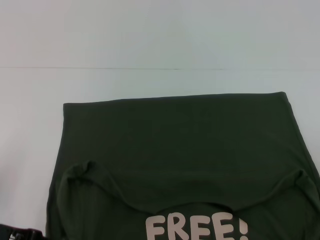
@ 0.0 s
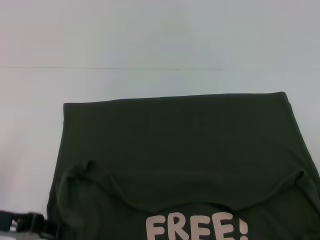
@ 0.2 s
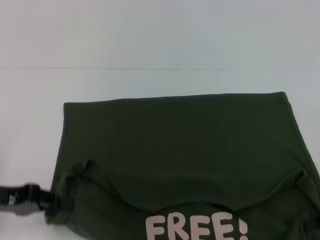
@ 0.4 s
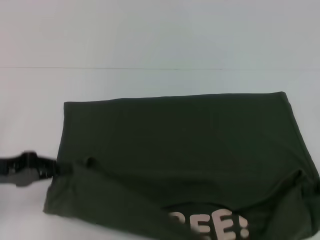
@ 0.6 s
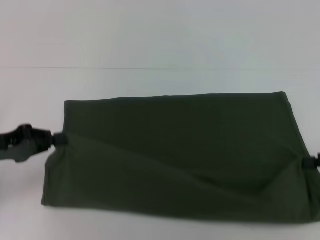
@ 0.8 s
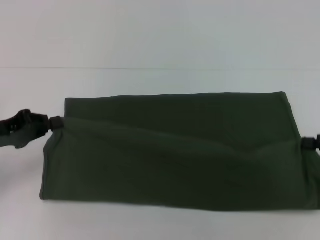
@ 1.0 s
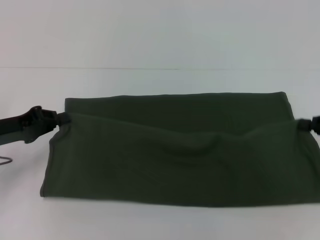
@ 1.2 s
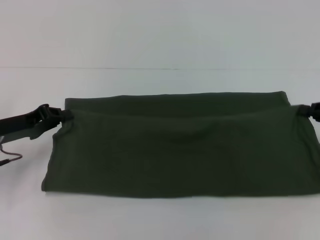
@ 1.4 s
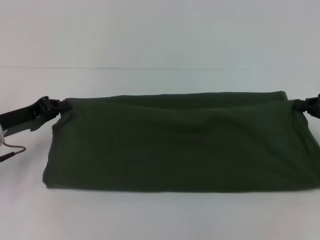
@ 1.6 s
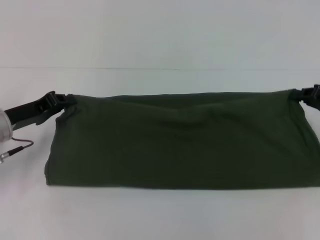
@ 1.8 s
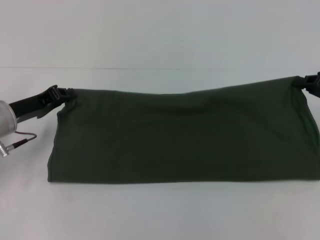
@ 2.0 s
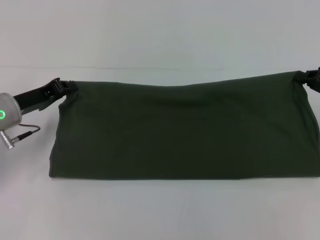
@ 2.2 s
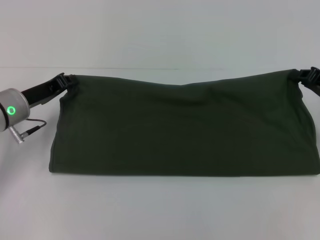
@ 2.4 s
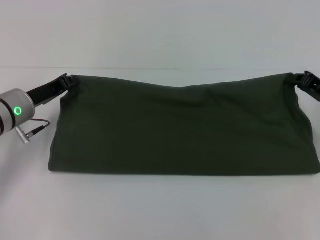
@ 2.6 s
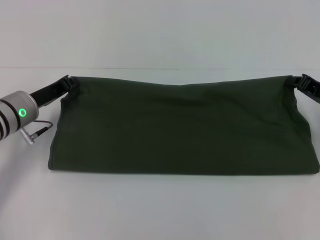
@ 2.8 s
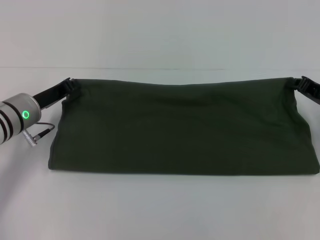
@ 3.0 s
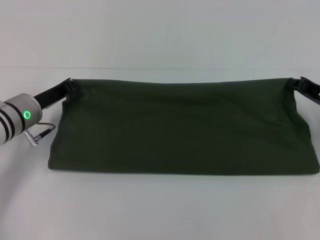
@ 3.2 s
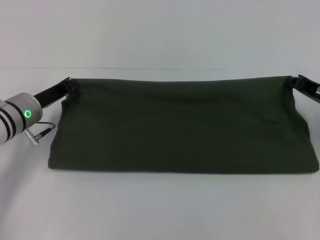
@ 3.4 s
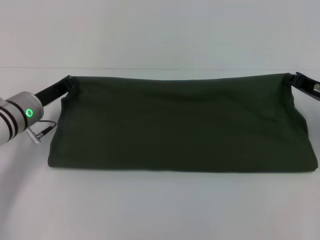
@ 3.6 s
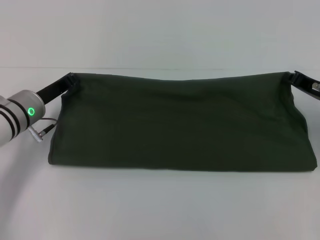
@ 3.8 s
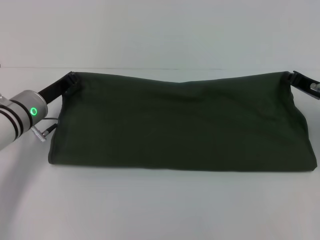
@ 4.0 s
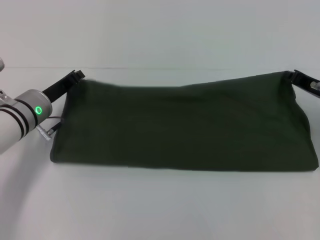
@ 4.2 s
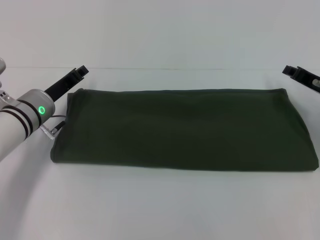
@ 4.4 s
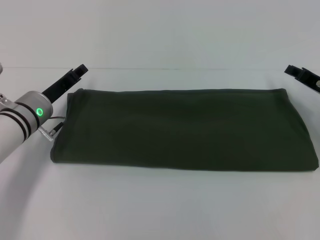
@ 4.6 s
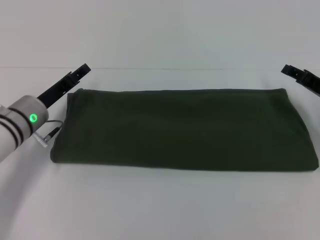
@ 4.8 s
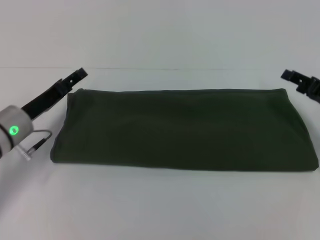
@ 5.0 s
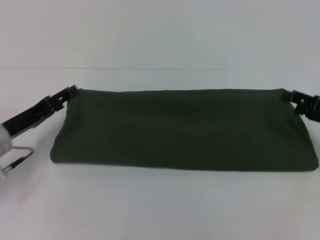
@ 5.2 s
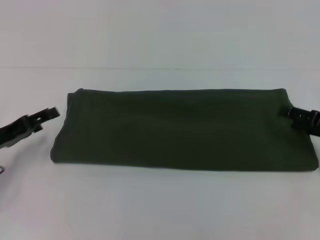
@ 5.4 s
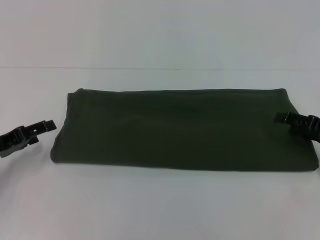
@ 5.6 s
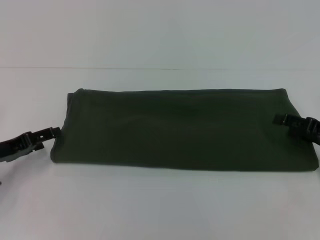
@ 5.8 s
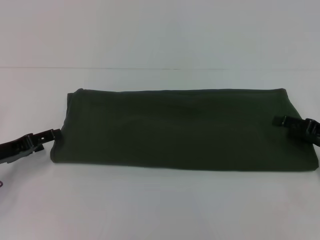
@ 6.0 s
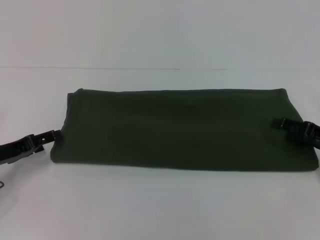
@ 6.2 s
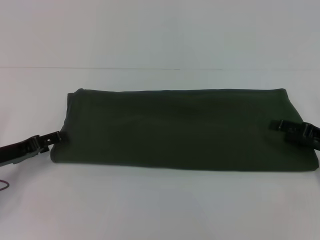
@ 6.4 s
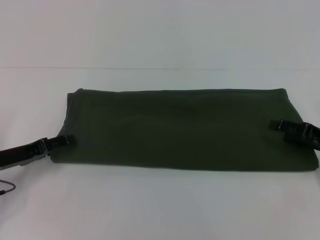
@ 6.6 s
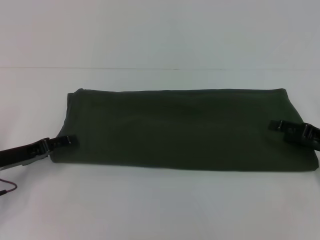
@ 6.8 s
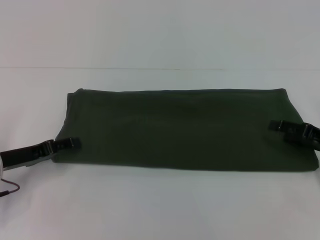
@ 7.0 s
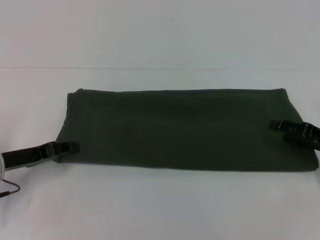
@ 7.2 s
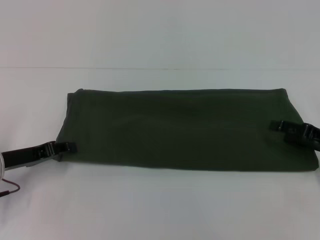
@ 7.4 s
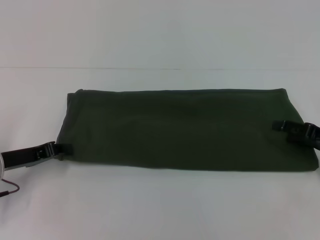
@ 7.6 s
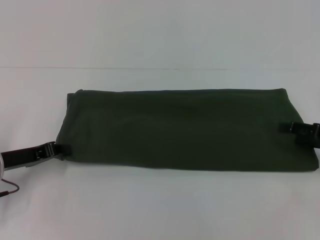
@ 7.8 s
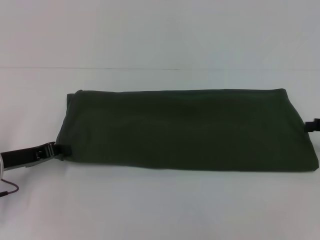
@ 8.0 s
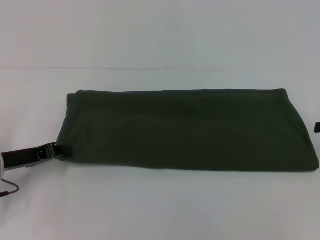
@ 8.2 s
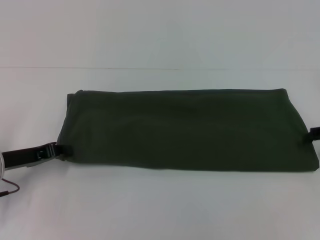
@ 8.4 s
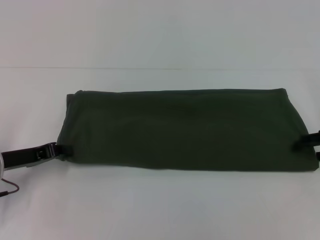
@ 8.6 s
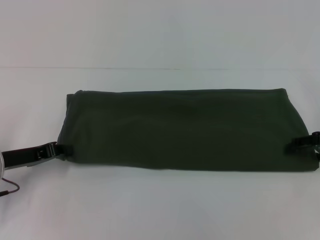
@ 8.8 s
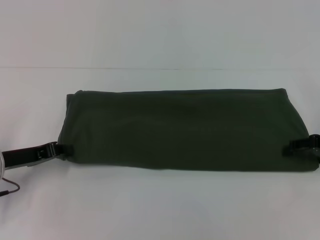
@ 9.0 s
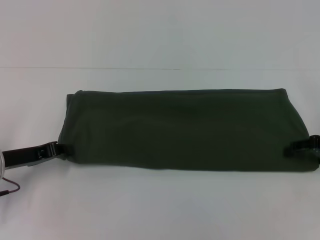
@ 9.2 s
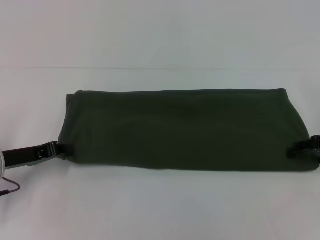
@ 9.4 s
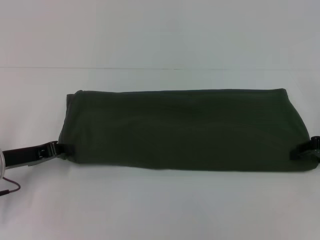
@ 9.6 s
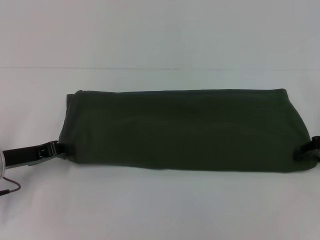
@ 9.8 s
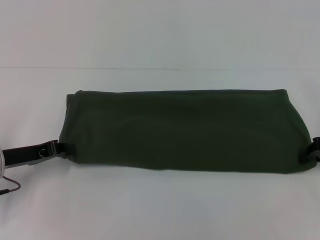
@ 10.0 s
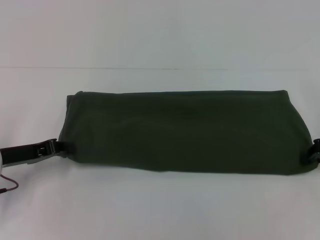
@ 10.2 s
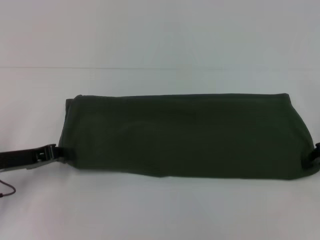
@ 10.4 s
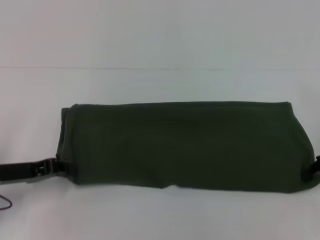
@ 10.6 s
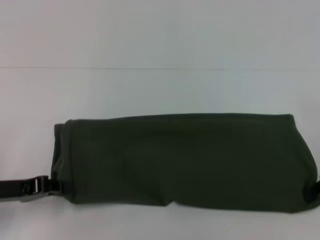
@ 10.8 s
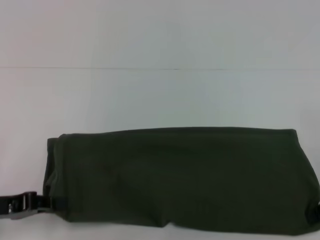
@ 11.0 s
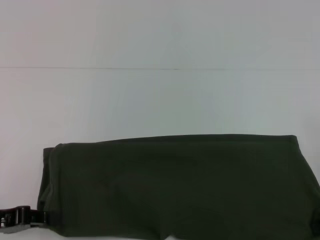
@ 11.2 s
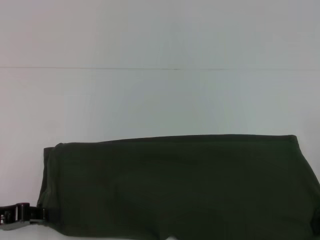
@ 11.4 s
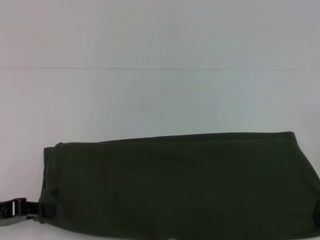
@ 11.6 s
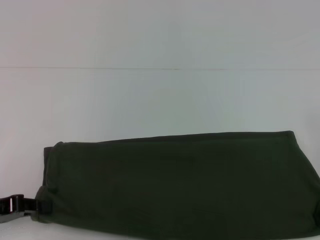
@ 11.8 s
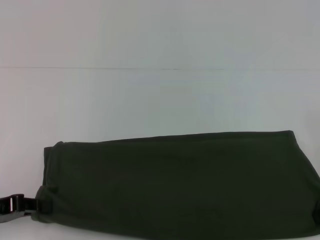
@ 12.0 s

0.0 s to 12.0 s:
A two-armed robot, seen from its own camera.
Step, 0.4 to 4.6 s: Fold the clothes with your left hand.
Step, 0.4 to 4.6 s: Fold the clothes with your right hand.
0.0 to 1.6 s: The grippers both shift forward by roughly 10 cm.
1.6 to 3.0 s: The left gripper shifts roughly 5 cm to the right, while the right gripper shifts by some 5 cm.
3.0 to 4.4 s: The grippers move only a little.
4.4 to 6.0 s: The left gripper is displaced to the left and backward by about 15 cm, and opens up. Meanwhile the right gripper shifts approximately 5 cm backward, and opens its fingers.
6.0 to 7.6 s: The left gripper closes its fingers.
9.0 to 10.4 s: The right gripper closes.
10.4 to 12.0 s: The right gripper shifts by about 5 cm, while the left gripper goes some 5 cm backward.

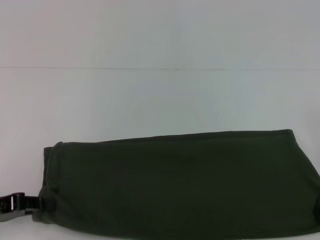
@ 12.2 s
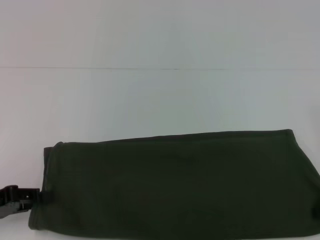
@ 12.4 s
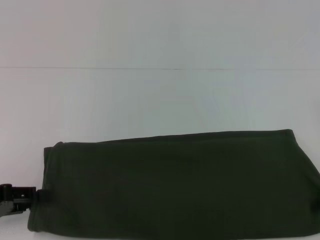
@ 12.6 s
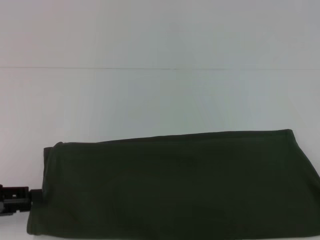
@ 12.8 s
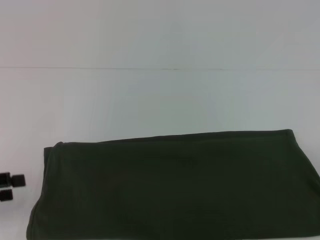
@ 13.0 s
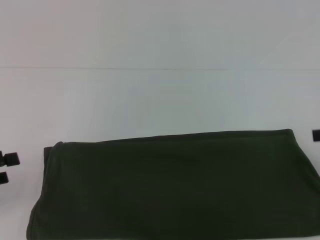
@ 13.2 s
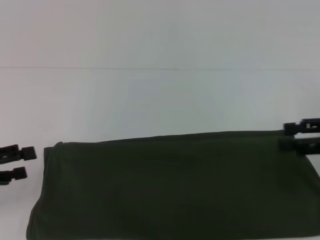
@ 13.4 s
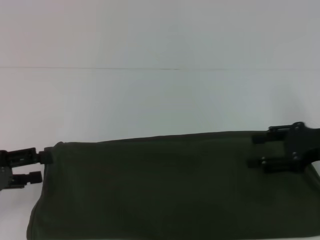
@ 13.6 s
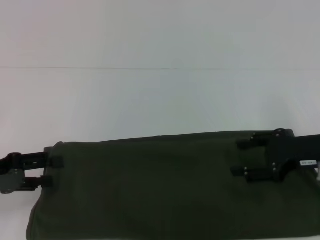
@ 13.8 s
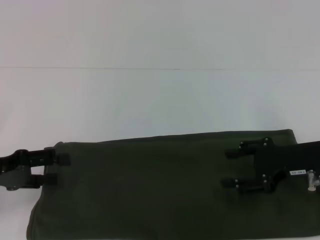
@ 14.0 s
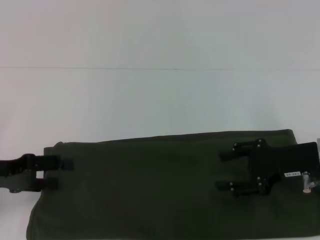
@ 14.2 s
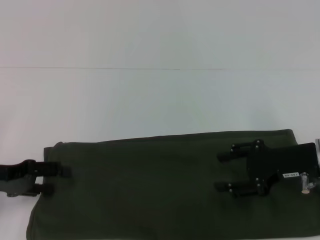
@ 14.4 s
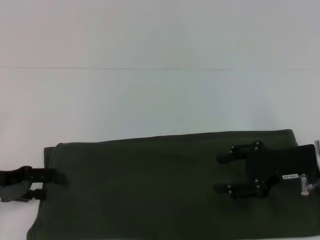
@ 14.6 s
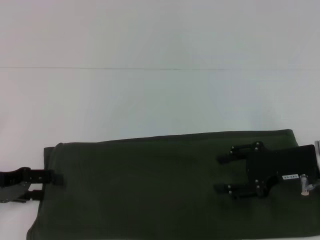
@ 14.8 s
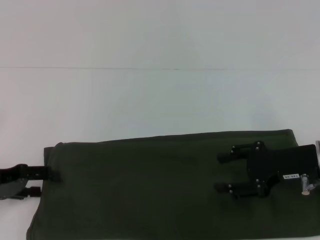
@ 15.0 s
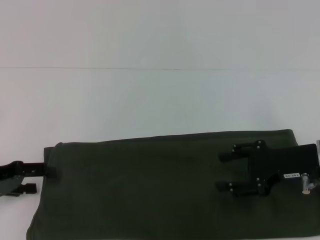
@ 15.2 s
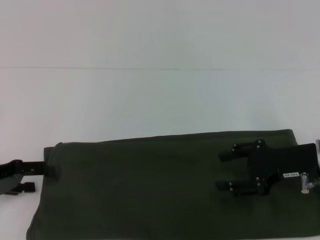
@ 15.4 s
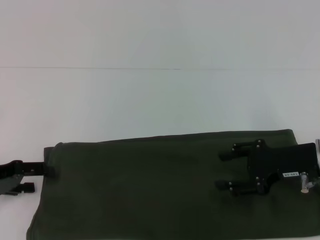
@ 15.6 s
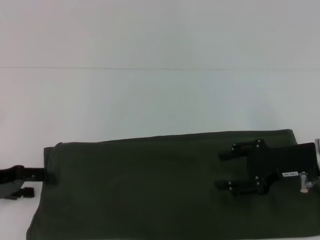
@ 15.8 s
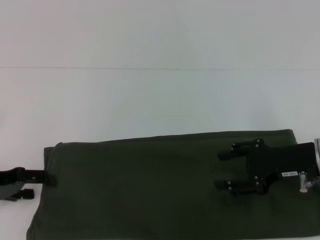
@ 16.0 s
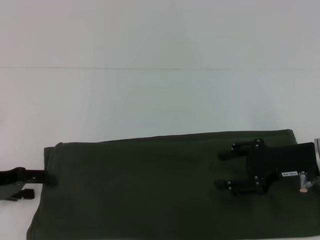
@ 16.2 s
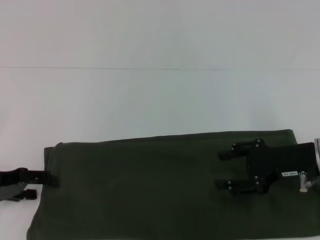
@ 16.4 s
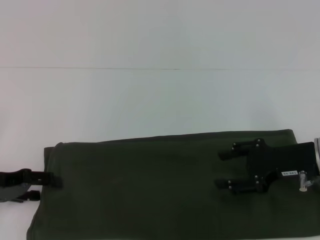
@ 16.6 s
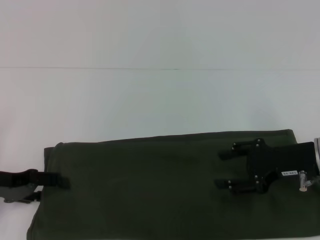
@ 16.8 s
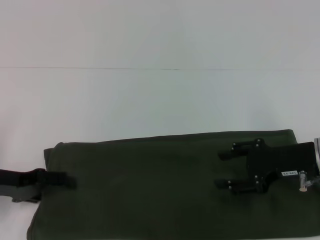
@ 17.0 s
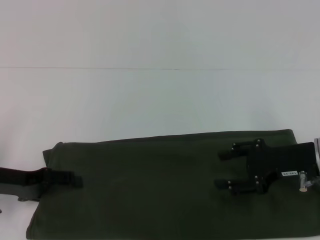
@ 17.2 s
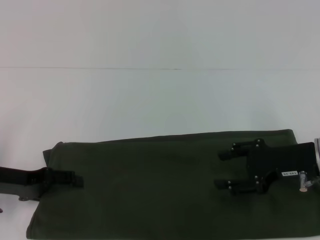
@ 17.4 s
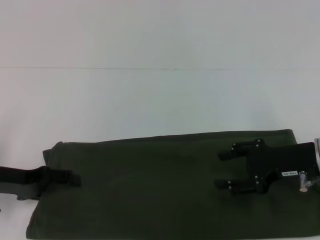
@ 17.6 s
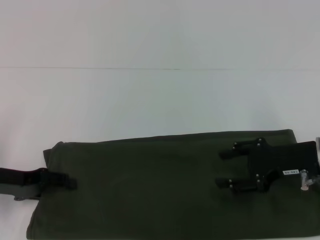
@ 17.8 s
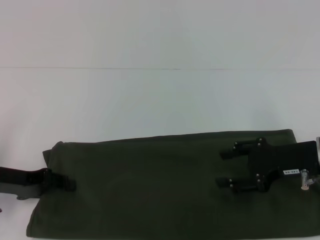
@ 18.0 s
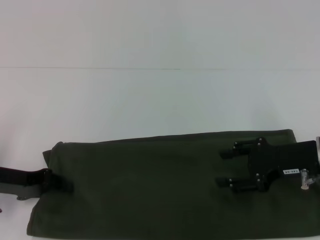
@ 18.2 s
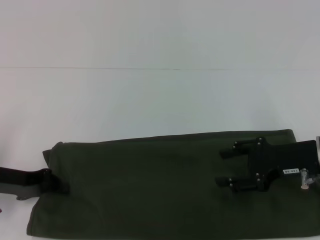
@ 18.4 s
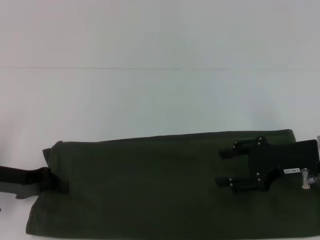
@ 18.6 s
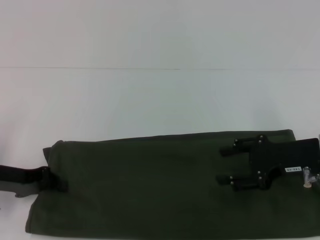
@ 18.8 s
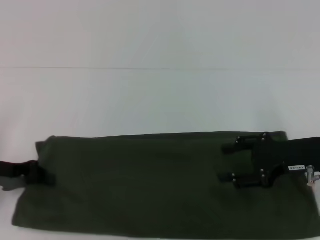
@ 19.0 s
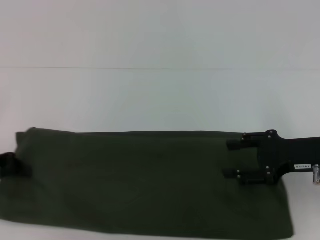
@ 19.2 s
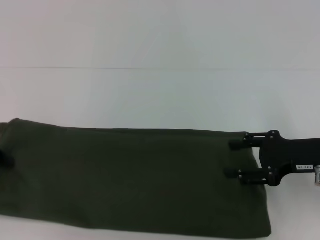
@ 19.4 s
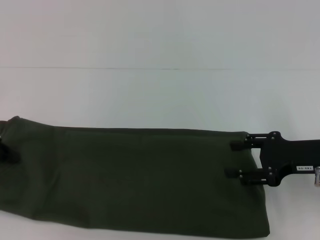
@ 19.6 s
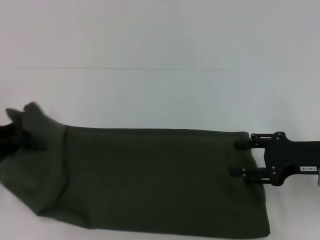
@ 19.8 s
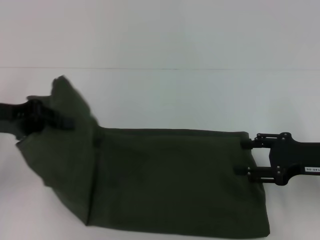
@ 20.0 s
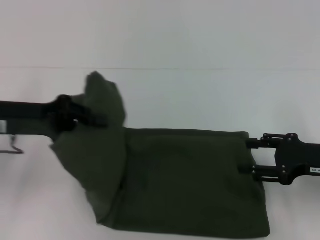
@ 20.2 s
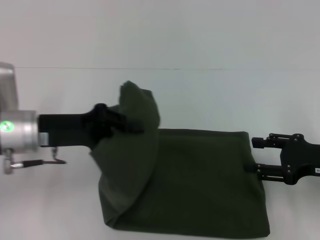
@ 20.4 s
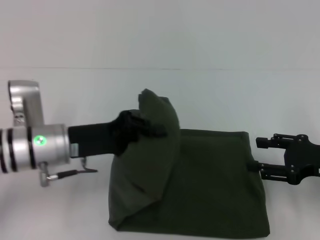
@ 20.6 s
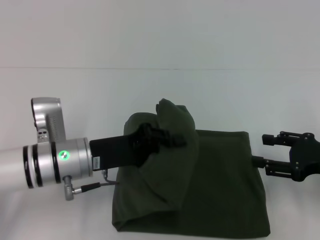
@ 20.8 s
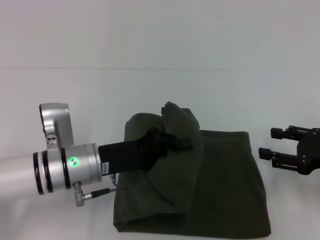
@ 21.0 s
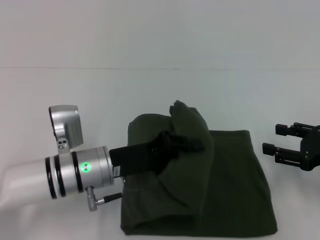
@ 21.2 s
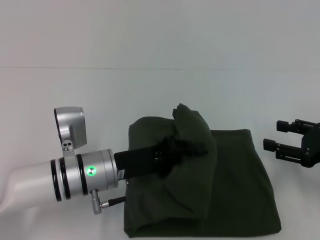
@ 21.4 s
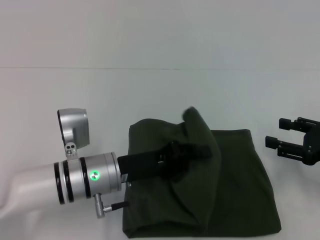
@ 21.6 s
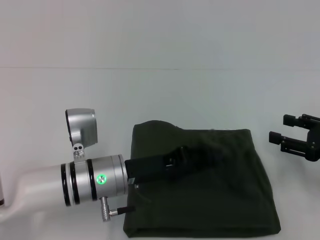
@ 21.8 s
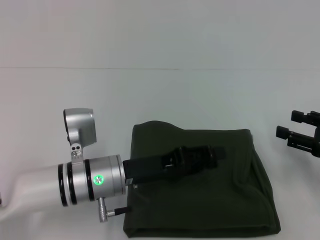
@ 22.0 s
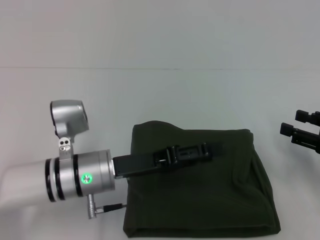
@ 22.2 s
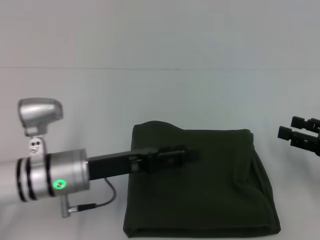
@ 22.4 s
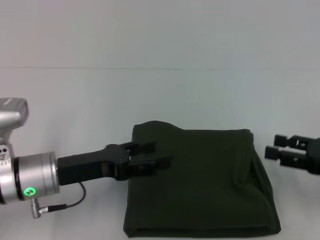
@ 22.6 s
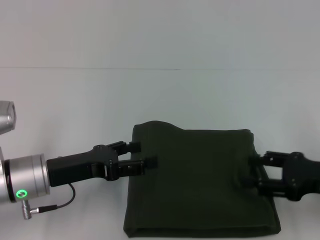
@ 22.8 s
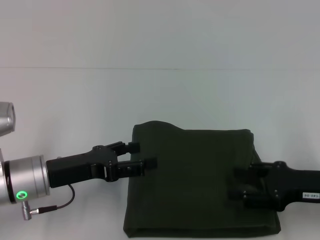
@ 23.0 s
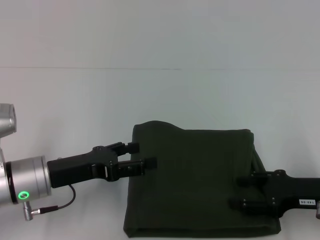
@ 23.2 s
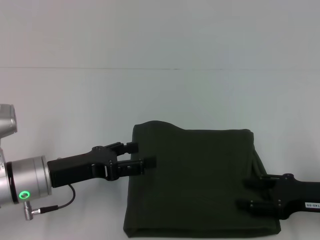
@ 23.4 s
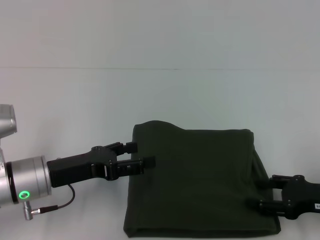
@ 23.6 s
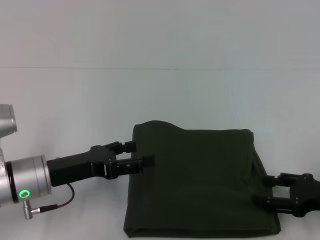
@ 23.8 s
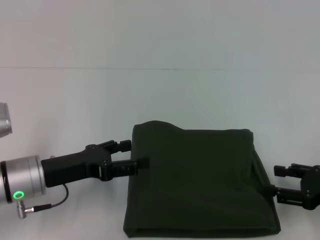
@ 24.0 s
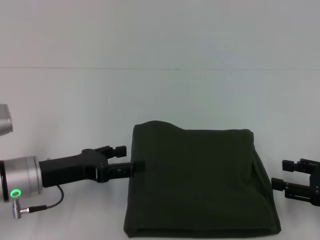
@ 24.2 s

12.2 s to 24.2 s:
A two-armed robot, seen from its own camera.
Step, 13.0 to 22.0 s: Fold the clothes with your left hand.
12.2 to 13.8 s: The right gripper shifts roughly 10 cm to the left, and opens up. Meanwhile the left gripper opens its fingers.
13.8 to 15.2 s: The grippers move only a little.
15.2 to 16.6 s: There are only small adjustments of the grippers.
16.6 to 18.2 s: The left gripper closes up.
18.2 to 19.8 s: The left gripper is displaced upward by some 5 cm, and closes up.
19.8 to 21.2 s: The left gripper shifts about 20 cm to the right and downward, while the right gripper moves some 5 cm.
21.2 to 22.6 s: The left gripper moves to the left, about 5 cm, and opens up.
22.6 to 24.2 s: The grippers move only a little.
